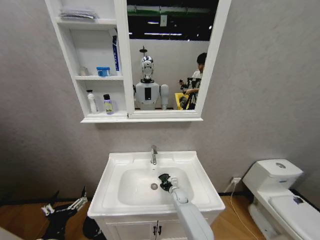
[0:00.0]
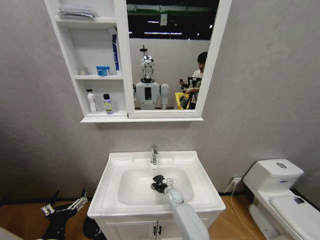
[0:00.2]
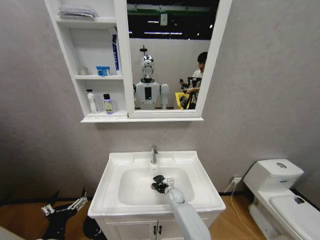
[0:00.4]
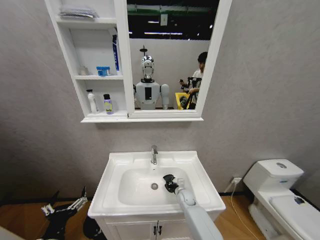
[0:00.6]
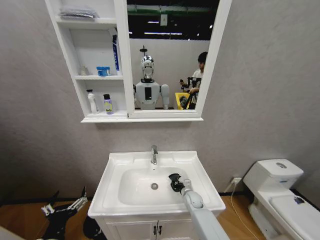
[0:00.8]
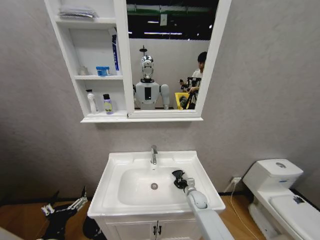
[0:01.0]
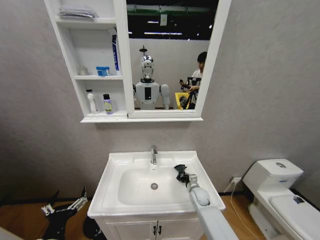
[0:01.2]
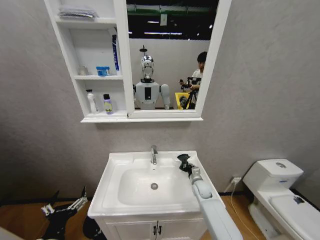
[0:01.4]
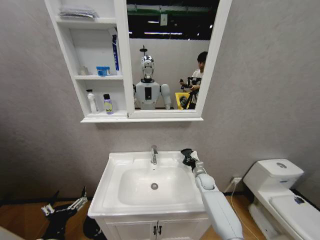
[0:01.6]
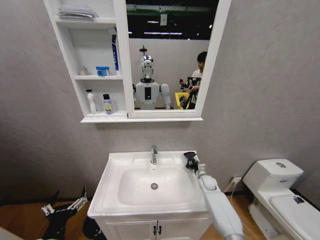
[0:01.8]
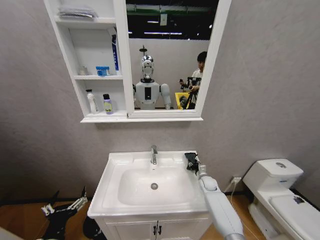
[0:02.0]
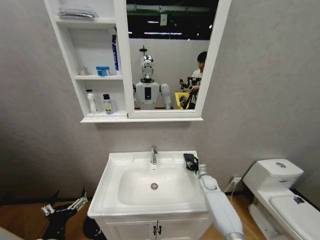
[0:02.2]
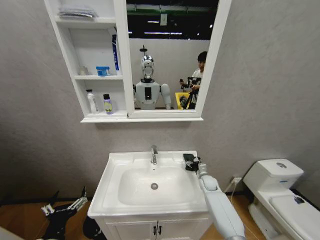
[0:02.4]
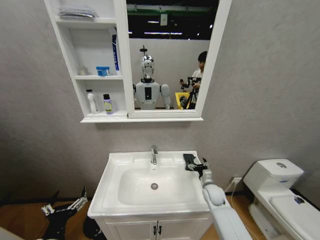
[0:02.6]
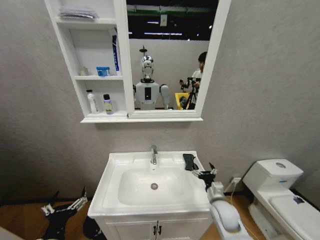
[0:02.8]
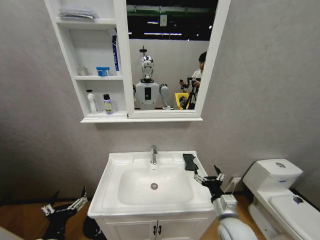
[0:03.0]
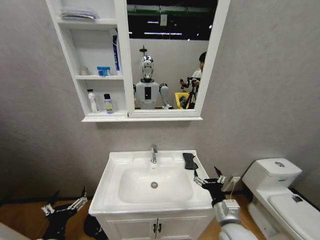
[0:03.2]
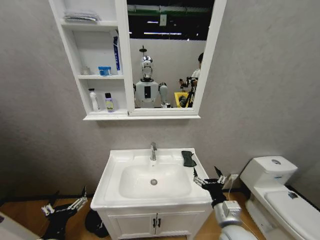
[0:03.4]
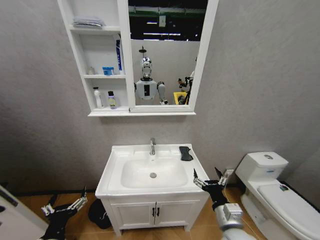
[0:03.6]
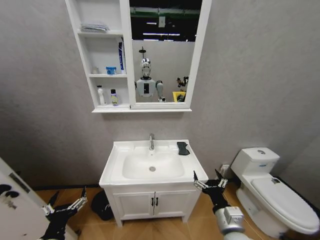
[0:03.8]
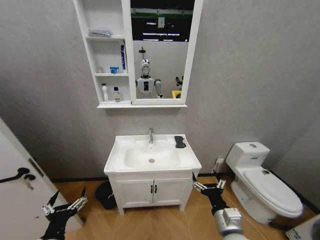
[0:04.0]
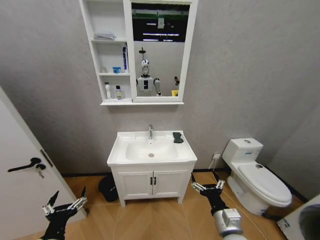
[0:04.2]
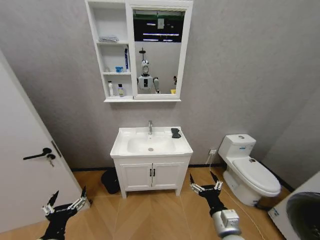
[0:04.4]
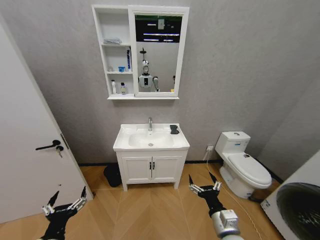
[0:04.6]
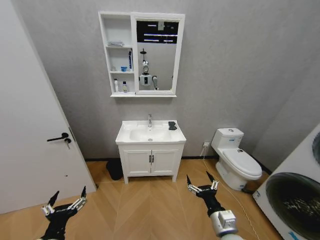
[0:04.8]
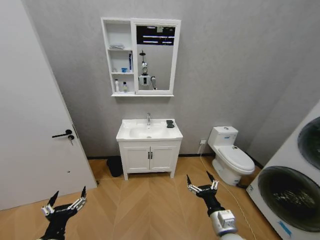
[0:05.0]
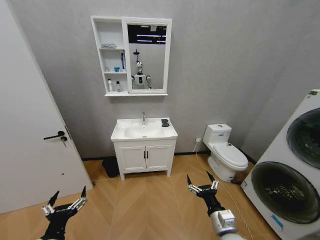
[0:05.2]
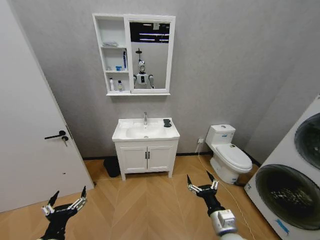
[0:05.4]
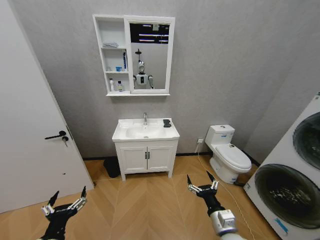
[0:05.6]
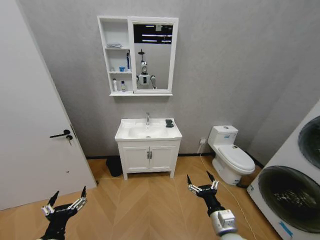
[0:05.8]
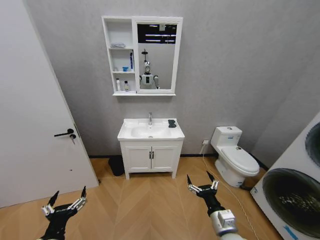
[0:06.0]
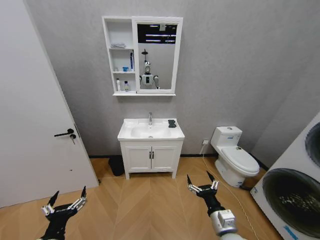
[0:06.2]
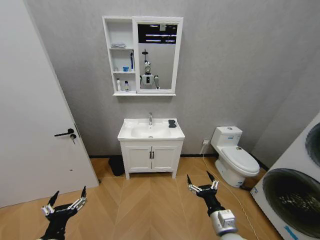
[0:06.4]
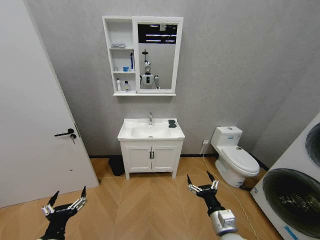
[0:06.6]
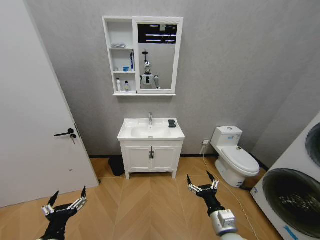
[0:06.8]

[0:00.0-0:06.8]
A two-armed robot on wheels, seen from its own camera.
Task of the whole recording: Move facial cleanser and shampoo from washbasin to cabinet, then wipe washbasin with towel.
0:00.0 to 0:01.4: The right gripper moves to the right and upward, approximately 15 cm.
0:01.4 to 0:02.8: The right gripper moves backward, about 15 cm, and opens its fingers.
0:02.8 to 0:04.0: The right gripper heads backward and upward, covering roughly 15 cm.
0:05.4 to 0:06.8: The two grippers keep their place.

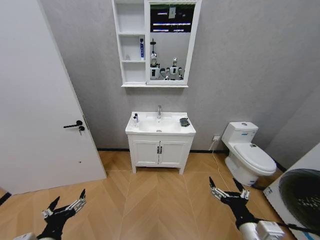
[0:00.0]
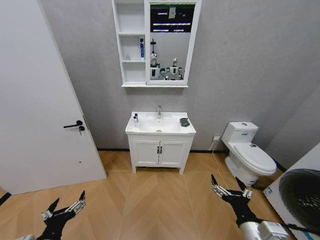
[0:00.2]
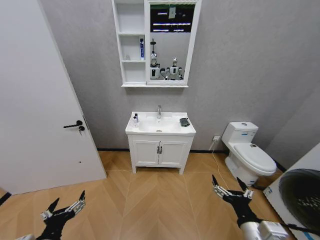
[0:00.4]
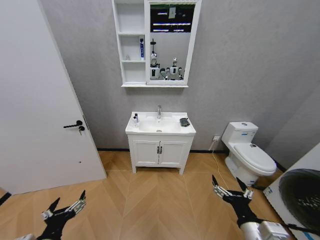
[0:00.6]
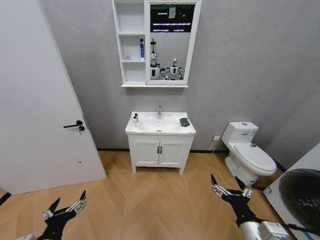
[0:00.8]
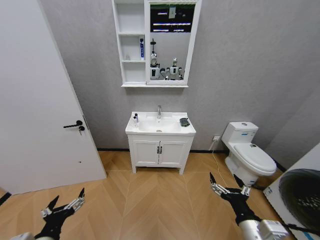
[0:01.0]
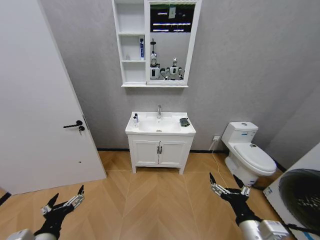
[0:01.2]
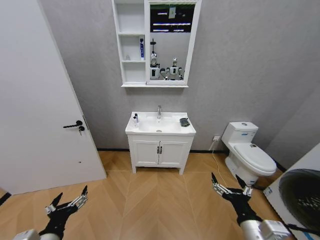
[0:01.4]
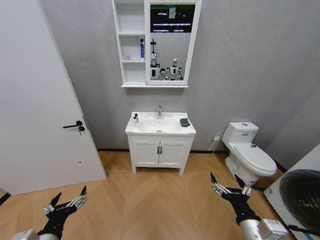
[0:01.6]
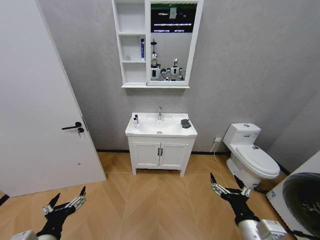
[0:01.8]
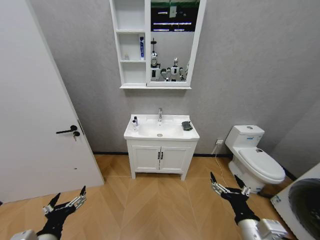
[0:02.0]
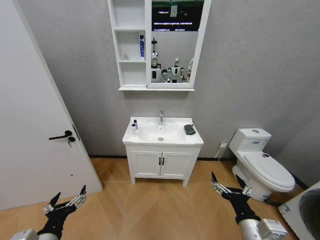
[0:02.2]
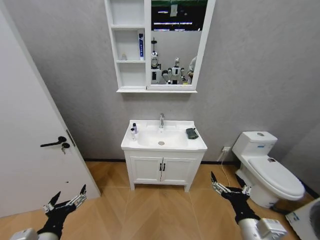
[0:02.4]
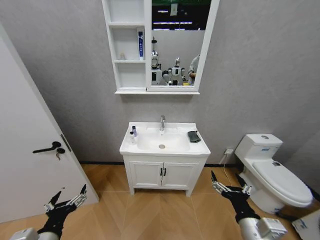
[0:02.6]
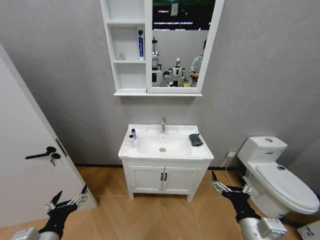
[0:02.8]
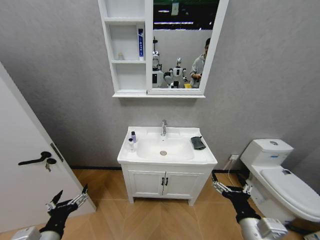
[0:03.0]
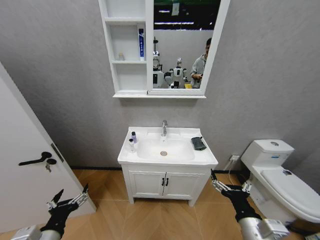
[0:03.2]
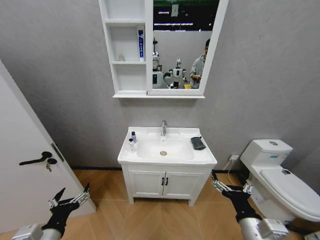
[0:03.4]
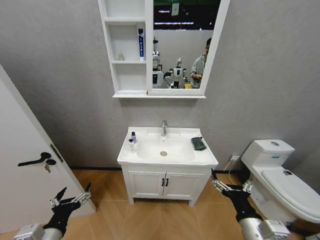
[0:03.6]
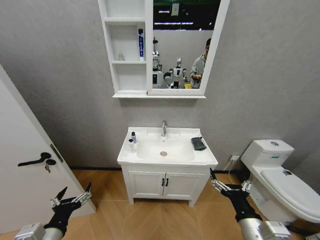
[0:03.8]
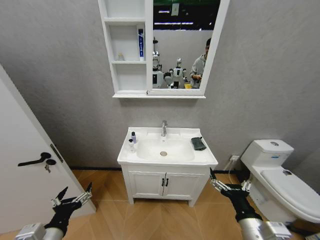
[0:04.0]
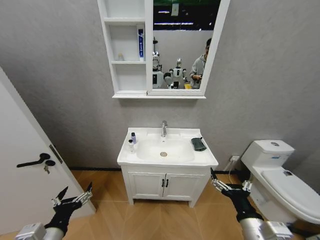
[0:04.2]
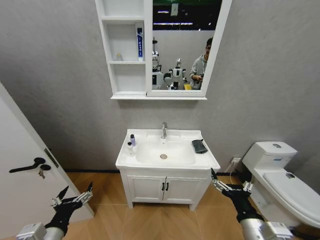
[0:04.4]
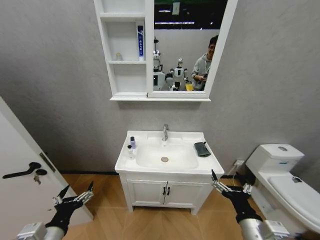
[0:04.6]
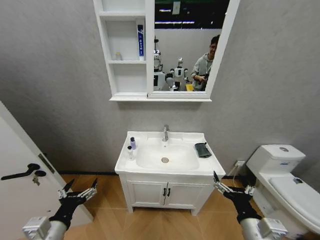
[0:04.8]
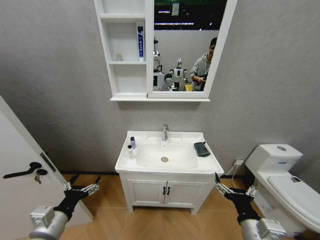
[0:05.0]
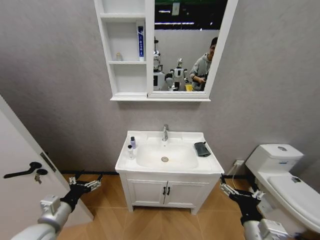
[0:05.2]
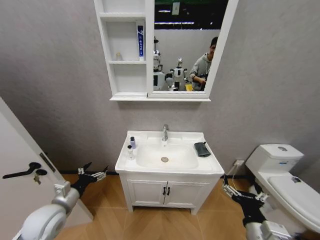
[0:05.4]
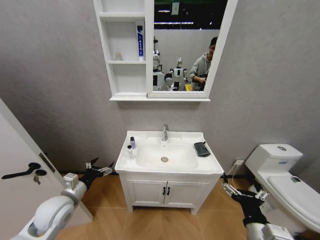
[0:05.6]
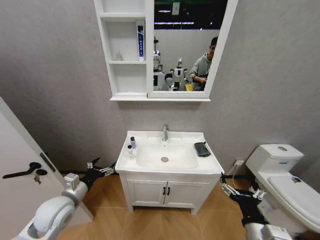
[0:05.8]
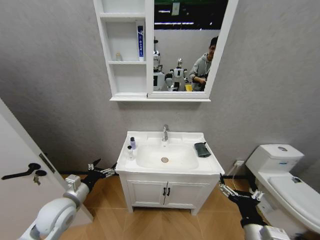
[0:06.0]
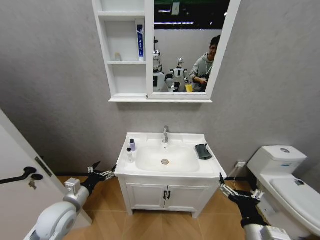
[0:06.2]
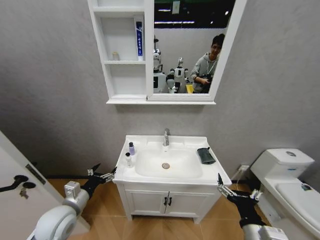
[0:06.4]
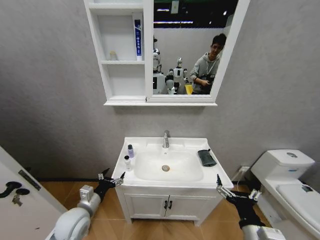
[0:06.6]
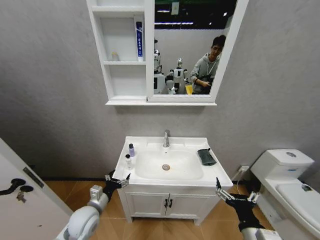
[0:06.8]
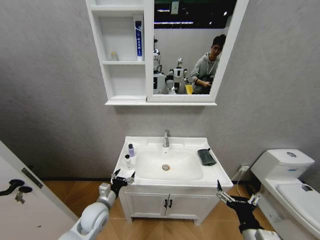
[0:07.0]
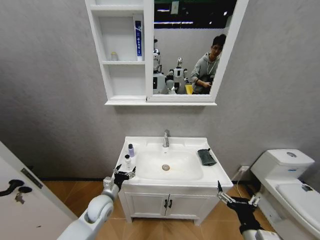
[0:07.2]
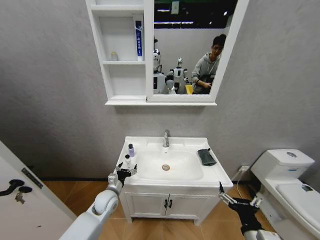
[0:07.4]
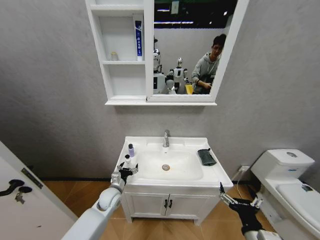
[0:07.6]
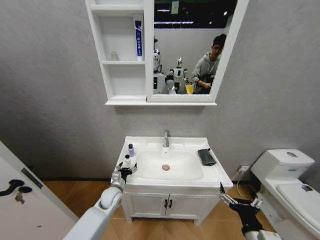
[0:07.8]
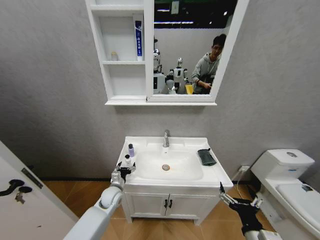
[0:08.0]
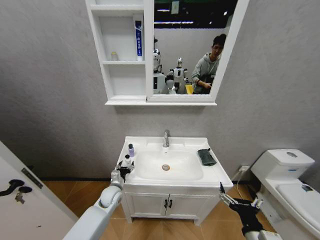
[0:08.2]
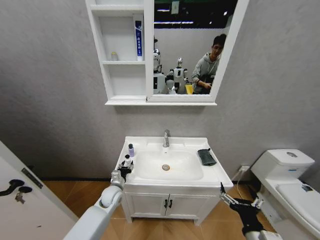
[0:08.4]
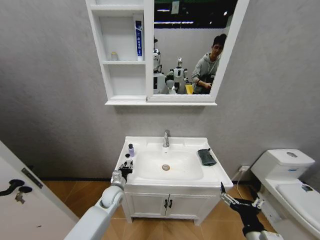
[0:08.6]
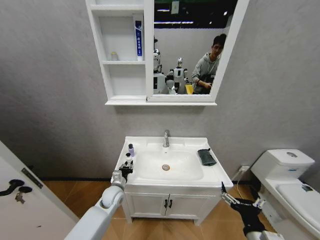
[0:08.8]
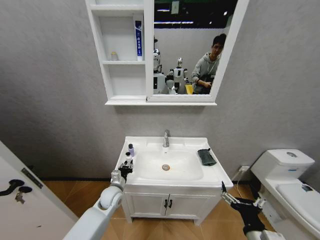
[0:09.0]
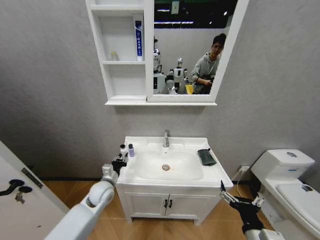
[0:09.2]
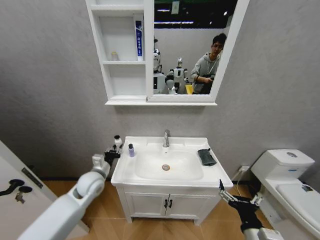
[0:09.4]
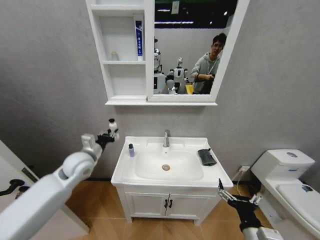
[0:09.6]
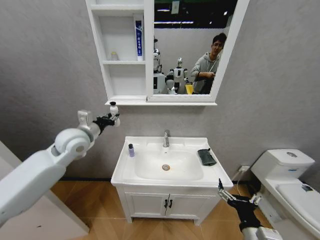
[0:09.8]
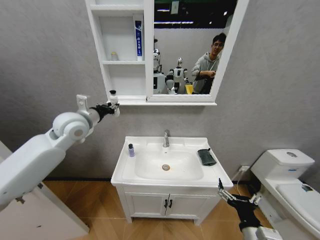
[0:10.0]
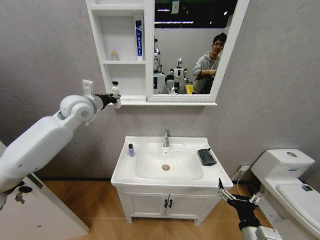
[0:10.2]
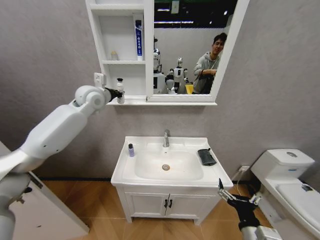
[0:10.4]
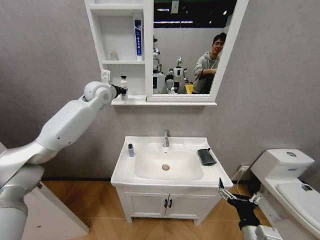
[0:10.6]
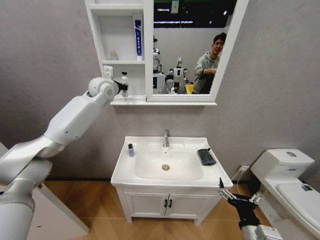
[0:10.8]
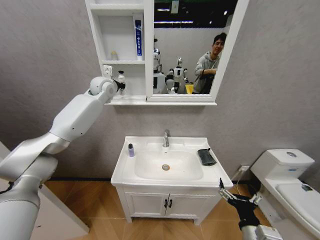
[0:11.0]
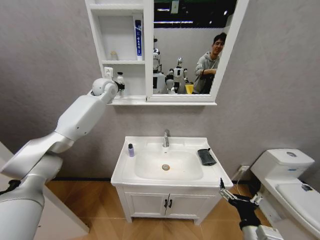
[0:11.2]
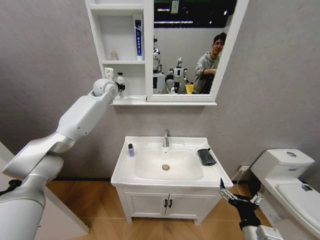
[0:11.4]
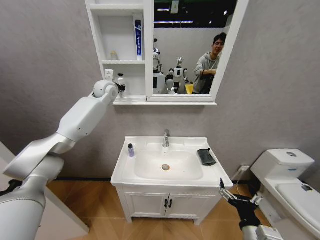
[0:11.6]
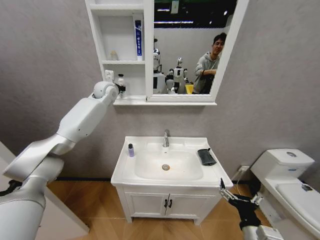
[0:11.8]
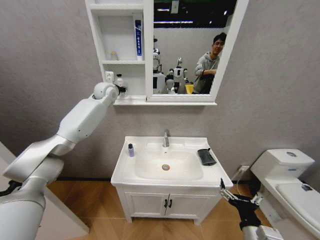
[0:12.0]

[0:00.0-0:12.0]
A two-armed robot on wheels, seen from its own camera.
Task of the whole recording: Move facial cleanser and shampoo from washbasin to cabinet, then wipe washbasin with towel.
0:03.0 to 0:04.4: The grippers make only small movements.
0:04.4 to 0:06.0: The left gripper shifts some 15 cm forward.
0:06.0 to 0:07.6: The left gripper moves downward, to the right and forward, roughly 20 cm.
0:07.6 to 0:09.0: The left gripper closes its fingers.
0:09.0 to 0:10.4: The left gripper moves upward and forward, about 40 cm.
0:10.4 to 0:12.0: The left gripper moves forward, roughly 10 cm, and opens up.

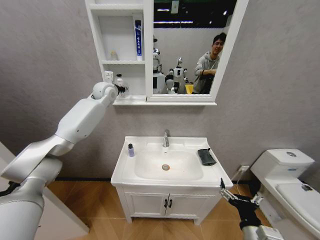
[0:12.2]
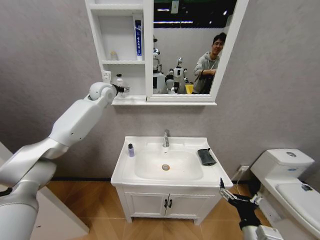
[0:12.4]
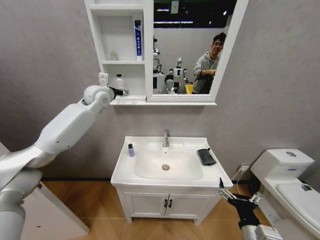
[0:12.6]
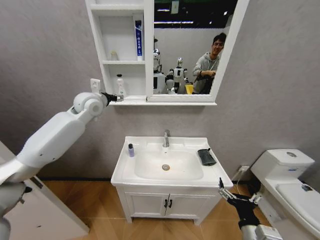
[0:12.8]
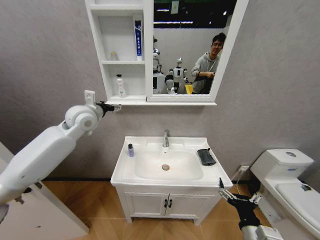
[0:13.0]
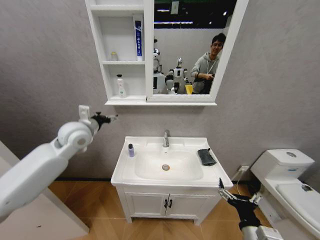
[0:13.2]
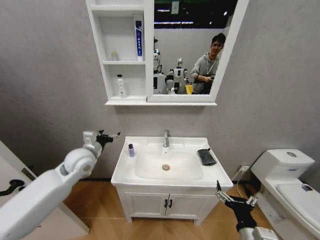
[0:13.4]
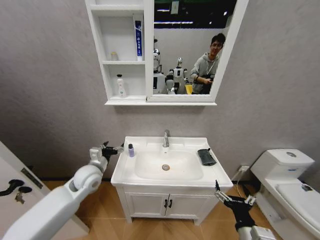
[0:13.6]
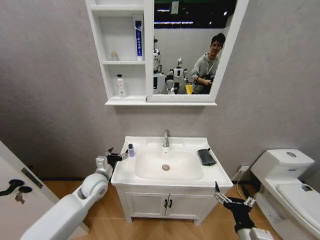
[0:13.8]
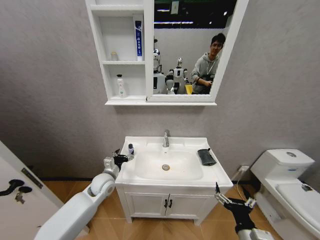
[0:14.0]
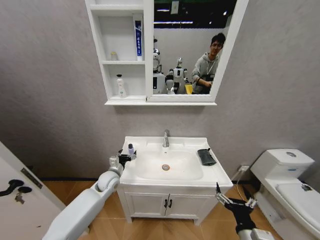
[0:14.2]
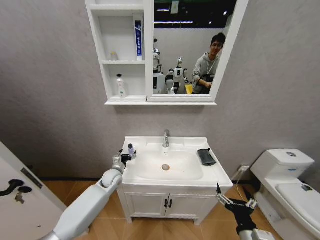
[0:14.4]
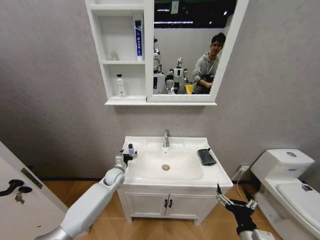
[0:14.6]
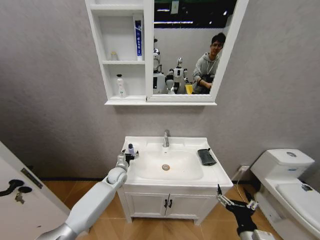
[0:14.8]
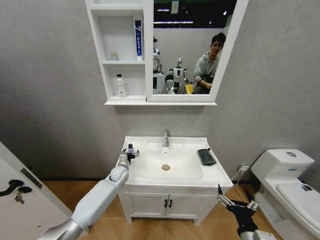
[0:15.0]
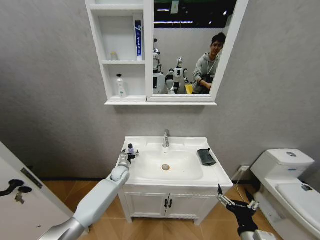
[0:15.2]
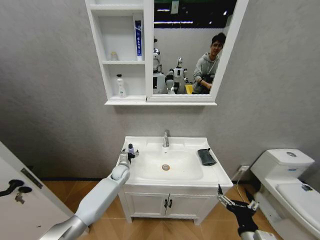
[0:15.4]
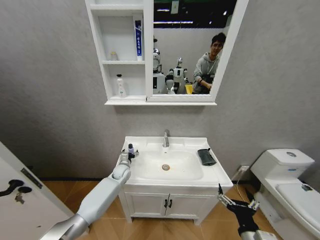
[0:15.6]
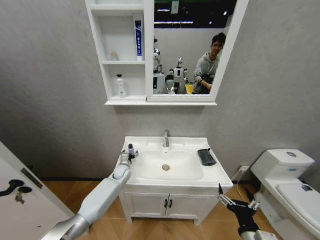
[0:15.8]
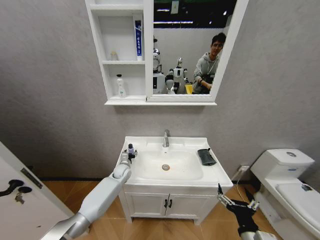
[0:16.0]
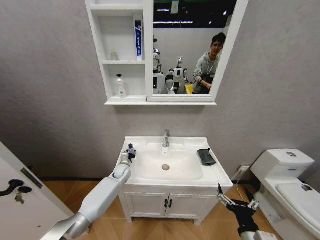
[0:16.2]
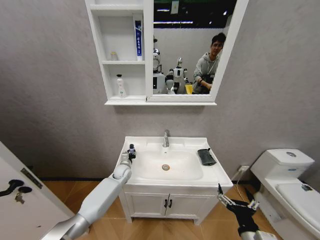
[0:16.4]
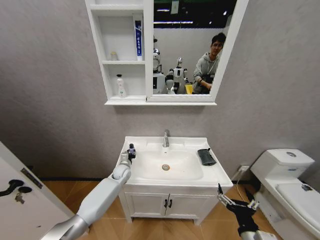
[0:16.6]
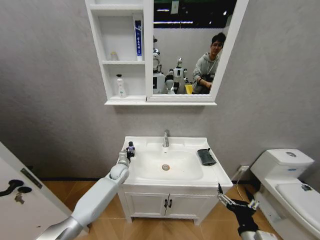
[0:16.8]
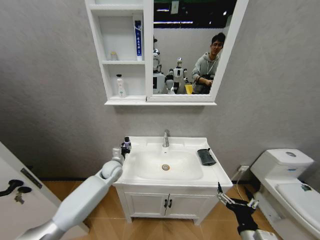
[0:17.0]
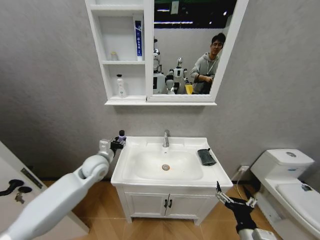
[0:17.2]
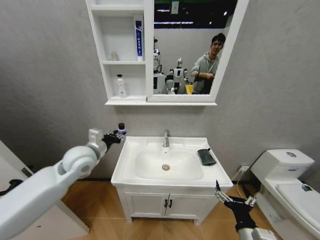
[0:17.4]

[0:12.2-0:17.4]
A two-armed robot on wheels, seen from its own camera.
Task of the whole recording: Move facial cleanser and shampoo from washbasin to cabinet, then wipe washbasin with towel.
0:12.2 to 0:14.0: The left gripper travels downward and backward by about 40 cm, and opens.
0:14.0 to 0:15.6: The left gripper heads forward and downward, covering some 15 cm.
0:15.6 to 0:17.4: The left gripper shifts roughly 30 cm upward and backward, and closes up.
